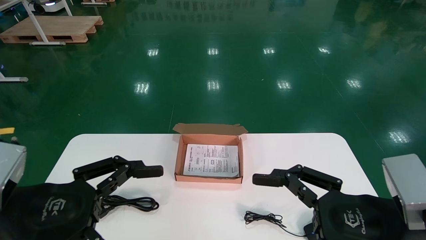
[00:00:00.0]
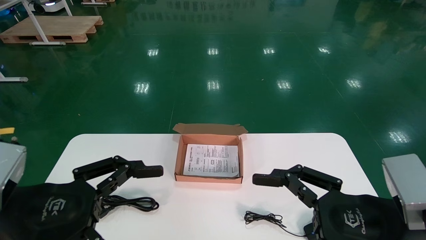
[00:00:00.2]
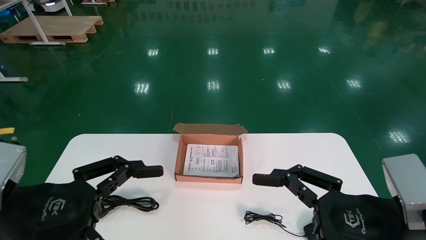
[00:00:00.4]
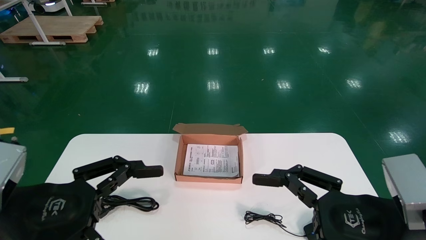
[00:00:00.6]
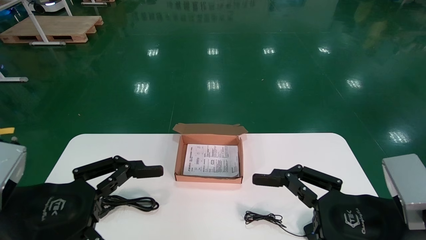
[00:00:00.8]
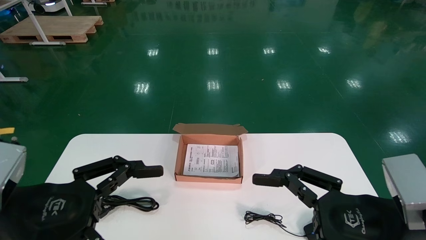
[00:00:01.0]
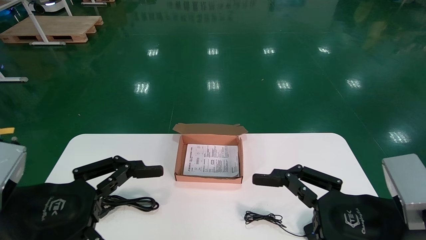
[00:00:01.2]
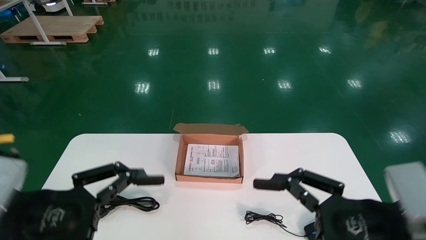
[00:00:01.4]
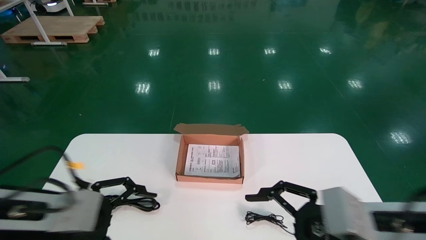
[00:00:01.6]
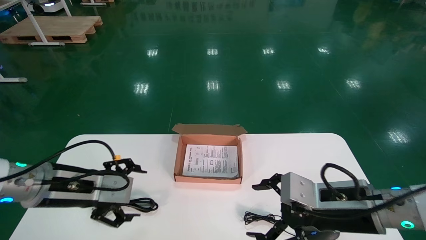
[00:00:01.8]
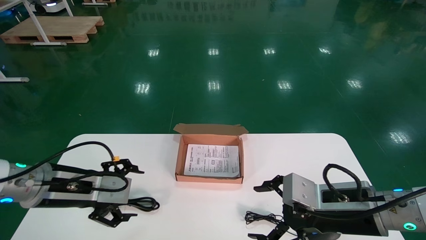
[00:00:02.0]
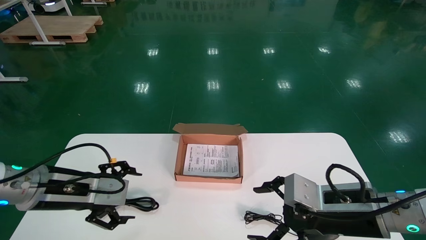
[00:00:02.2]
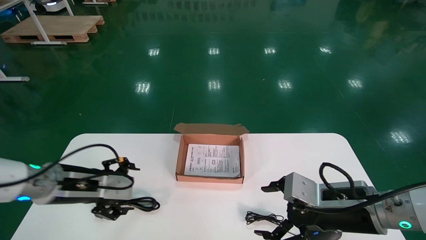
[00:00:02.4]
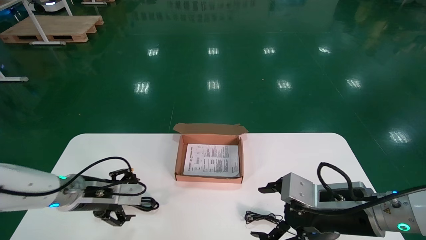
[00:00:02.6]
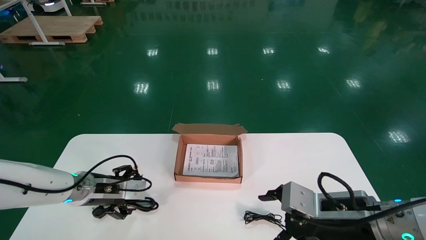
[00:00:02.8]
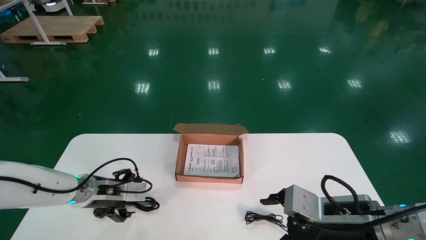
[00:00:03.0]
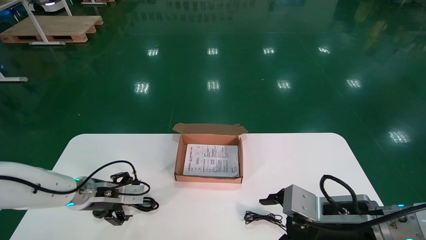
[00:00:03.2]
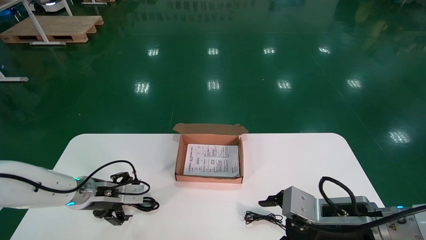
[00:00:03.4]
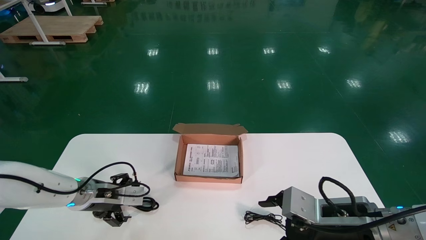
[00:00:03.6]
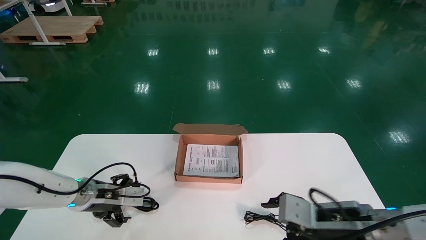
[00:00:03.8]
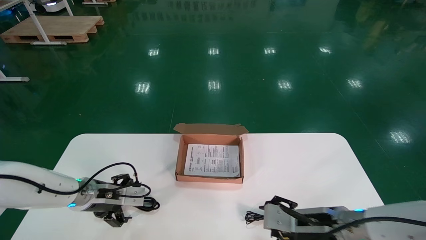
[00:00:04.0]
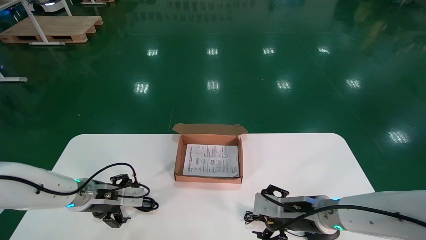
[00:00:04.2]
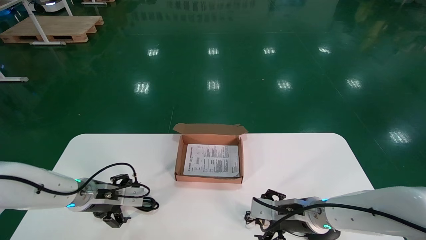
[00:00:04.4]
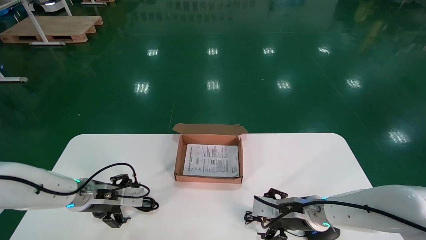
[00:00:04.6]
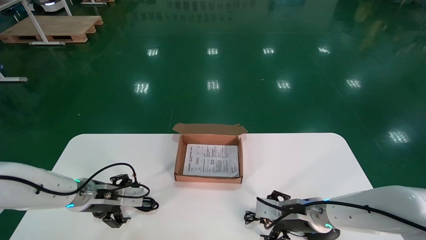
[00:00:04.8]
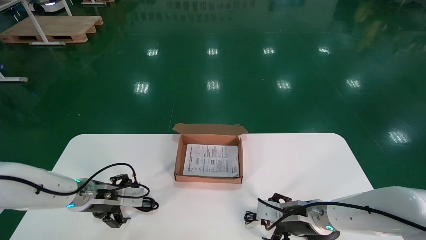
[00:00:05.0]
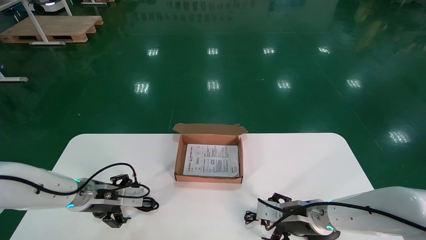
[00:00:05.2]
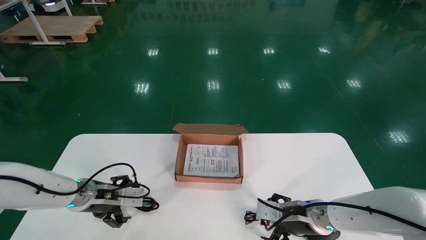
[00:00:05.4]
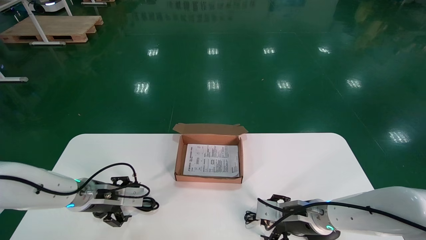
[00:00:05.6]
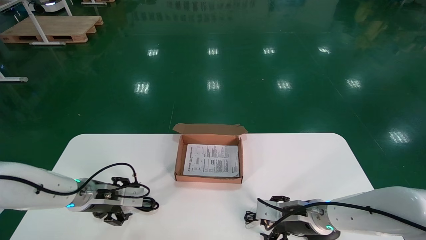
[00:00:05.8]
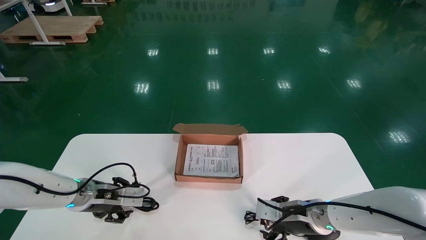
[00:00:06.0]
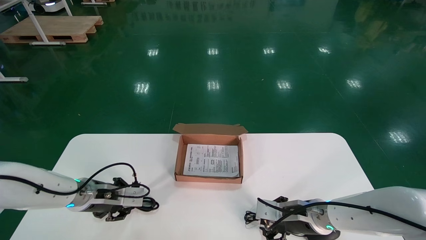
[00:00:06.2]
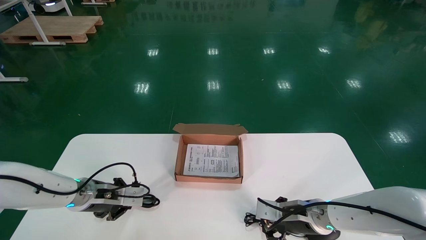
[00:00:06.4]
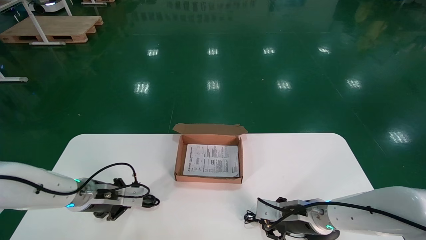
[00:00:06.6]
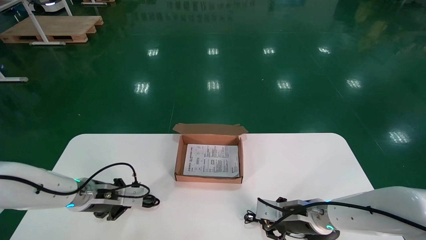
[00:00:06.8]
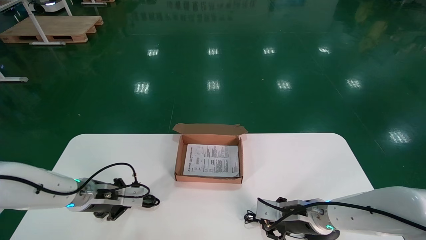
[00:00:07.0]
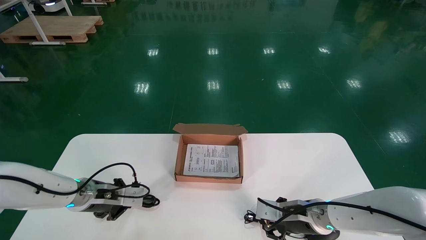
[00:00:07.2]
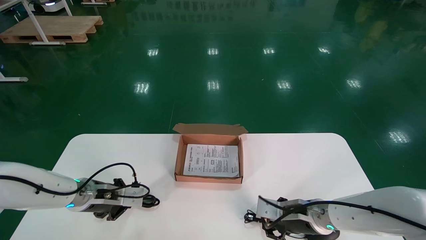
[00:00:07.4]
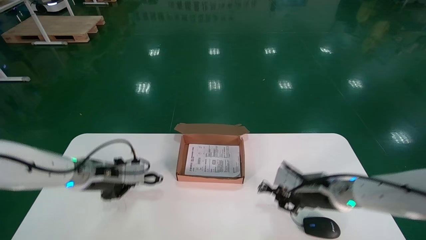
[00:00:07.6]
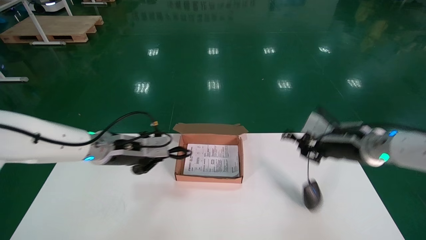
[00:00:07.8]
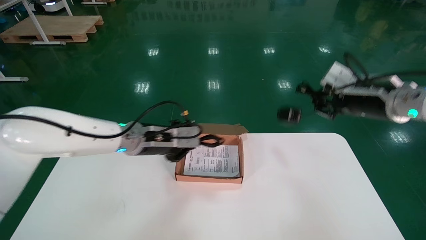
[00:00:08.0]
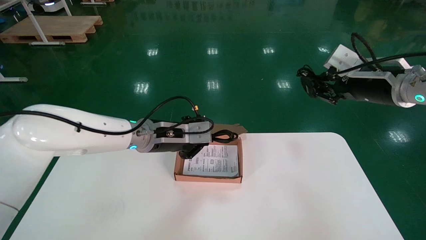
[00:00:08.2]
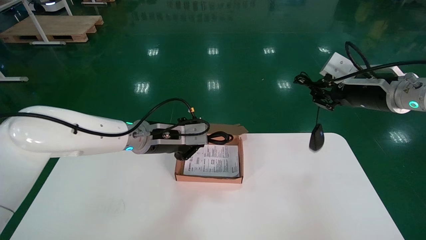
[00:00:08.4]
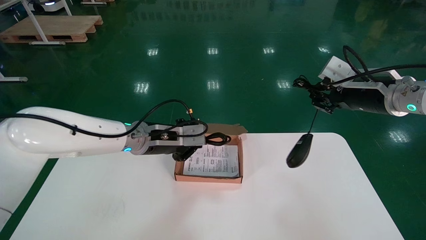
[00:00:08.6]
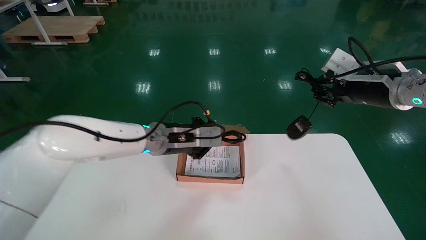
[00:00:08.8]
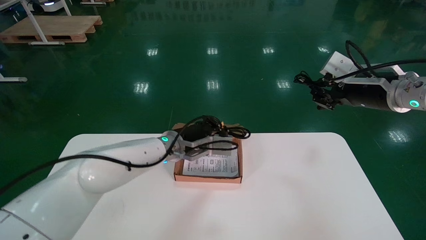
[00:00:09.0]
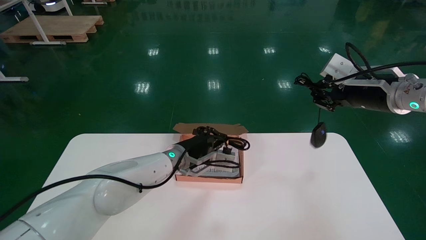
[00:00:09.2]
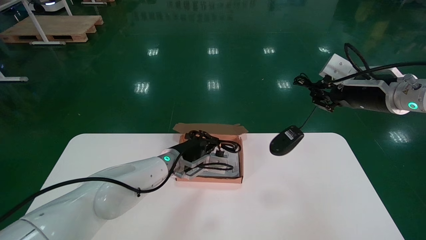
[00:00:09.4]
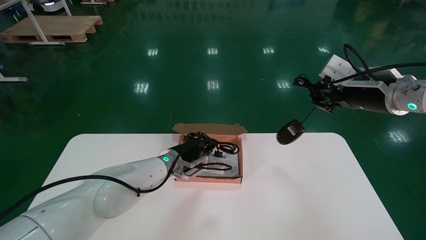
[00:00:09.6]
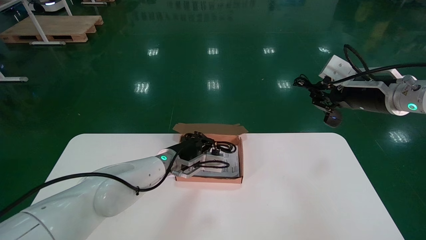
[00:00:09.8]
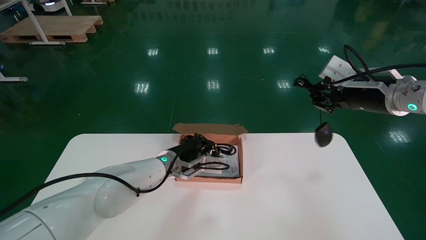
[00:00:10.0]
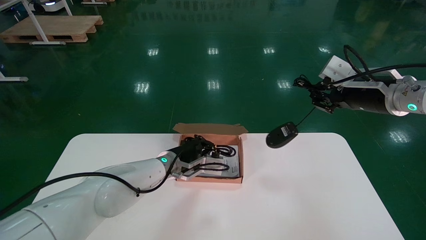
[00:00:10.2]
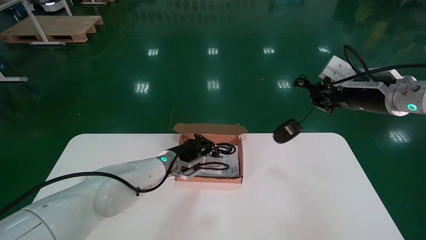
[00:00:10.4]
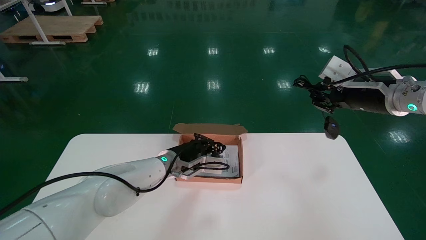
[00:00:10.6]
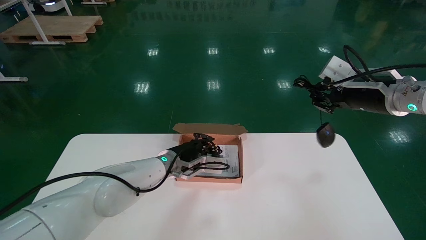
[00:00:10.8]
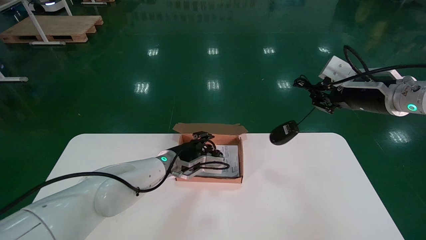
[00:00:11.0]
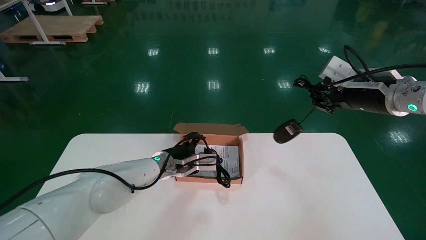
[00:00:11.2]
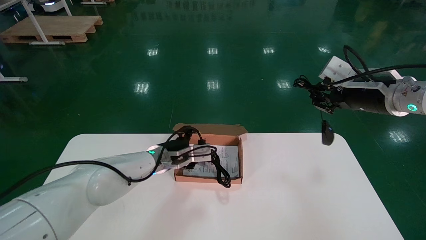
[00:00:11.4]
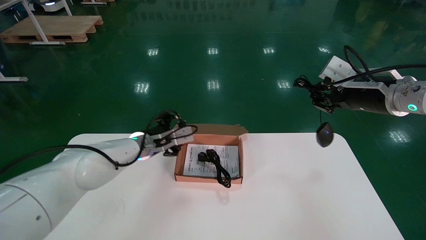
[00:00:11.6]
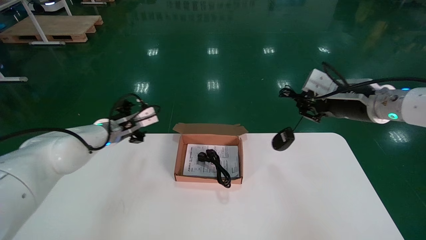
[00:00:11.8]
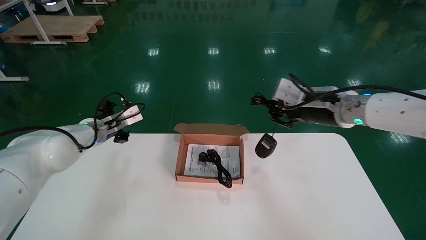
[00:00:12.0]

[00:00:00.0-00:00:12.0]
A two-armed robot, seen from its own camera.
Step, 00:00:01.6 to 00:00:08.0: Simultaneously pick up the mouse and power cord from the accessory packaging area.
00:00:00.0 to 00:00:01.6: The grippers both shift forward by roughly 5 cm.
00:00:01.6 to 00:00:03.0: The right gripper ends up roughly 5 cm from where it was, while the left gripper is displaced forward and downward by roughly 15 cm.
00:00:03.0 to 00:00:04.4: The right gripper goes about 15 cm forward and downward.
00:00:04.4 to 00:00:06.0: The left gripper closes its fingers. Meanwhile the right gripper closes.
00:00:06.0 to 00:00:07.6: The left gripper moves upward, roughly 5 cm, and closes its fingers, while the right gripper moves upward and to the right, about 10 cm, and closes its fingers.
00:00:07.6 to 00:00:09.0: The right gripper goes about 20 cm upward; the left gripper heads to the right, covering approximately 15 cm.
00:00:09.0 to 00:00:10.4: The left gripper travels downward by about 5 cm.
00:00:10.4 to 00:00:12.0: The left gripper heads to the left and upward, covering approximately 20 cm, and opens. Meanwhile the right gripper heads to the left, covering about 10 cm.

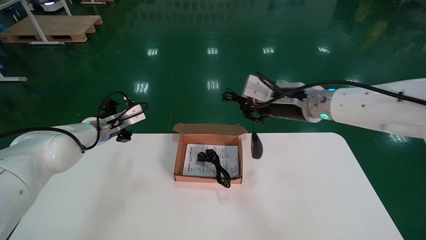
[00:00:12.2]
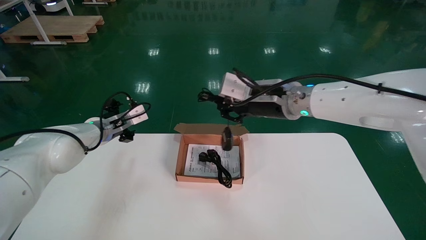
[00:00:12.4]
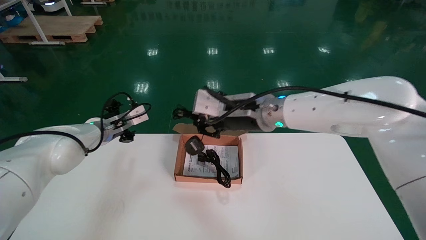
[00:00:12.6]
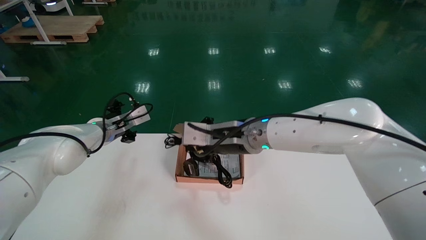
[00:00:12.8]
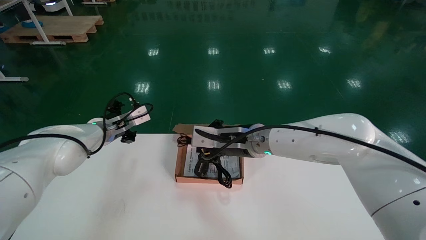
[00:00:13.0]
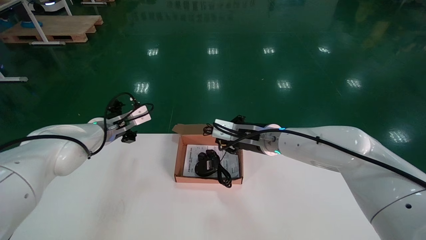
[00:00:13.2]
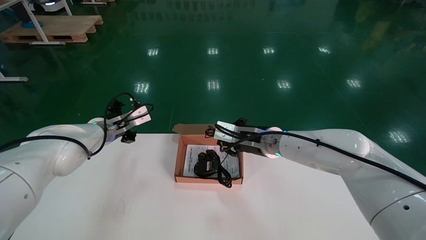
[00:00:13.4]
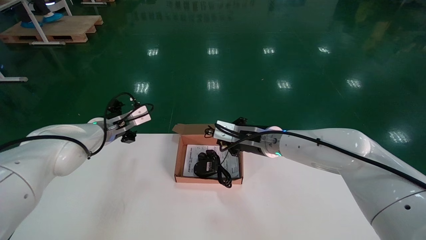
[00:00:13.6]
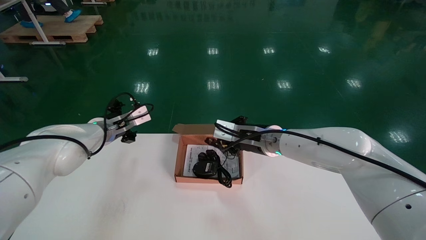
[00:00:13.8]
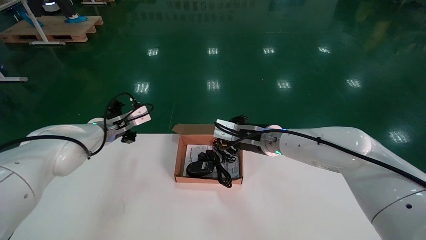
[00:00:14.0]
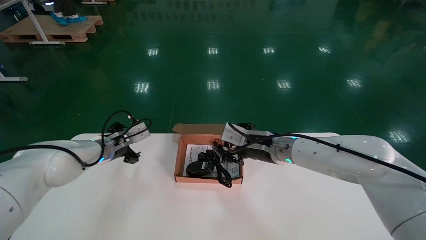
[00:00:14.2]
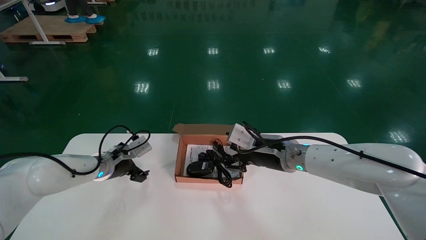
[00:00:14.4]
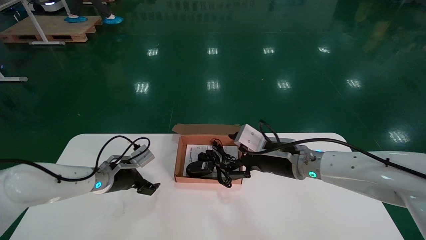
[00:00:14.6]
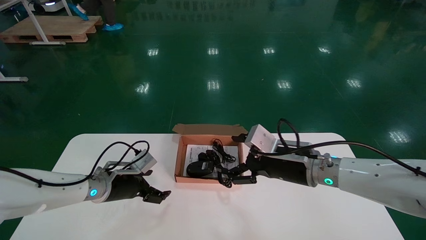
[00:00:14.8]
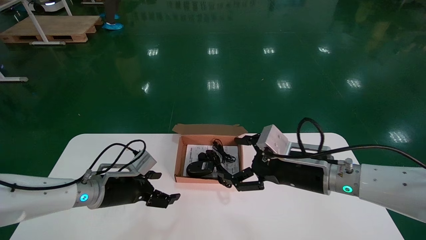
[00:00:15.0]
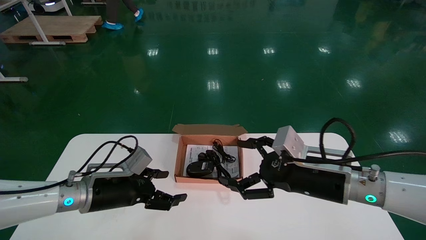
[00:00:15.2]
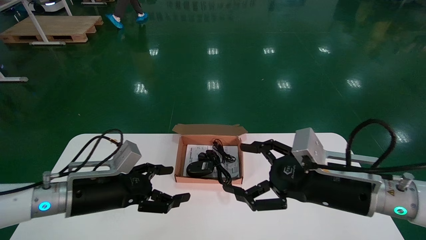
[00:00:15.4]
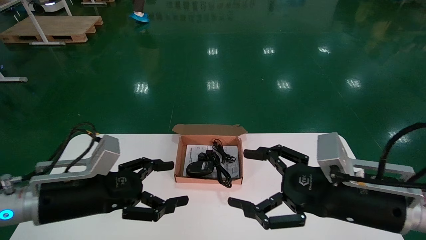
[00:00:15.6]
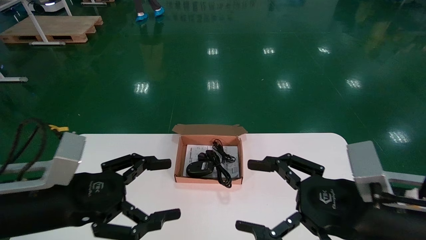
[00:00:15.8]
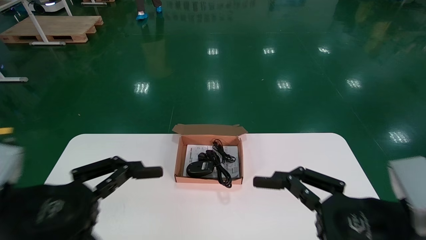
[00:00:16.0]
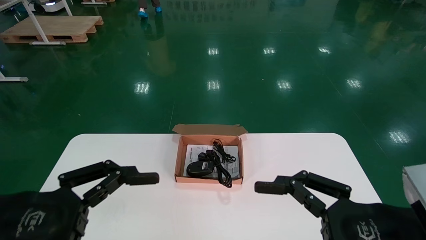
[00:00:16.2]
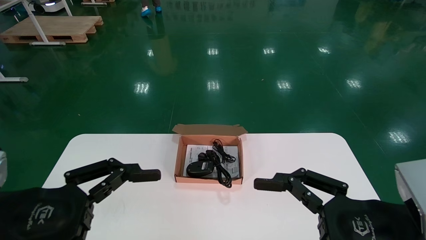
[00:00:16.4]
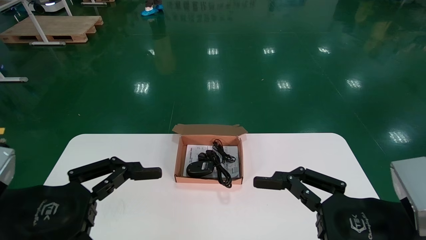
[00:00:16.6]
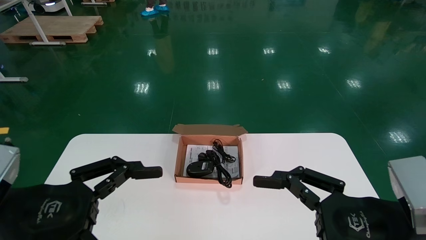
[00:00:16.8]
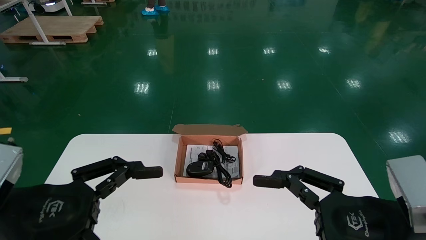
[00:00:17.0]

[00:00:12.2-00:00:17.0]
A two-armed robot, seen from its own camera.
00:00:12.2 to 00:00:13.8: The right gripper heads downward, to the left and forward, covering roughly 15 cm.
00:00:13.8 to 00:00:15.4: The right gripper shifts approximately 20 cm backward and to the right, and opens its fingers, while the left gripper travels backward and downward by some 20 cm.
00:00:15.4 to 00:00:17.0: The left gripper is displaced backward and upward by roughly 15 cm. The right gripper goes approximately 10 cm backward.
